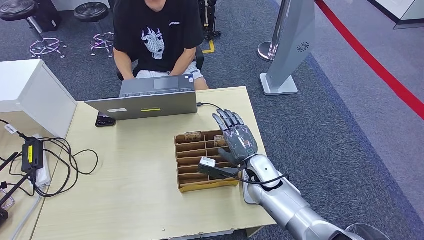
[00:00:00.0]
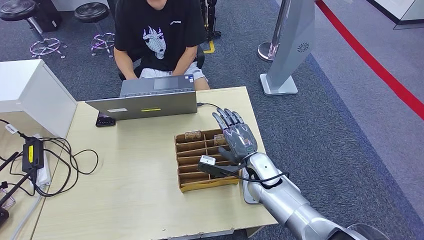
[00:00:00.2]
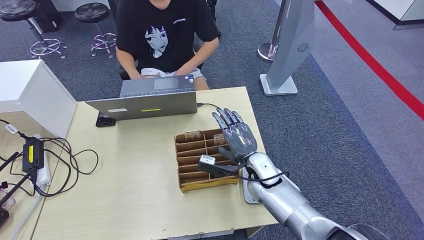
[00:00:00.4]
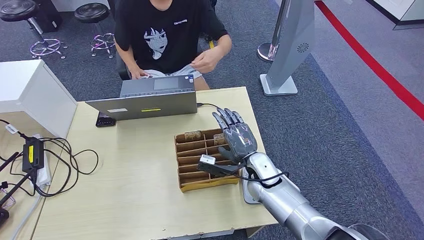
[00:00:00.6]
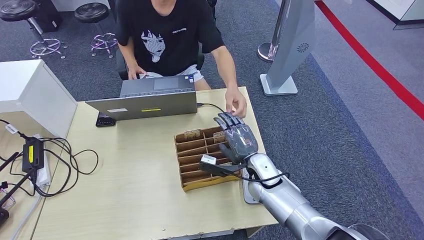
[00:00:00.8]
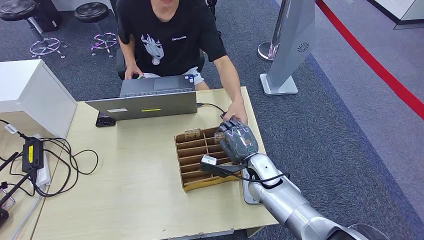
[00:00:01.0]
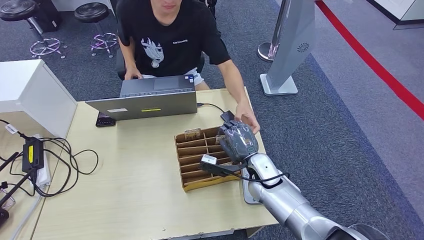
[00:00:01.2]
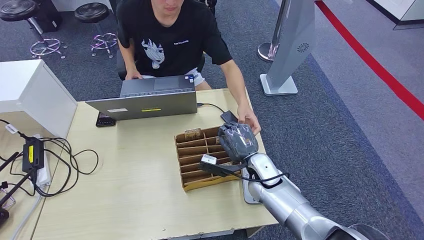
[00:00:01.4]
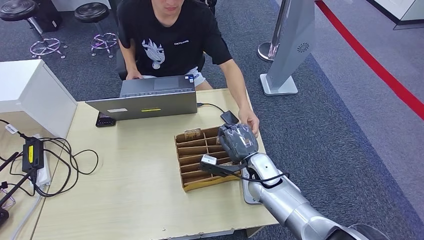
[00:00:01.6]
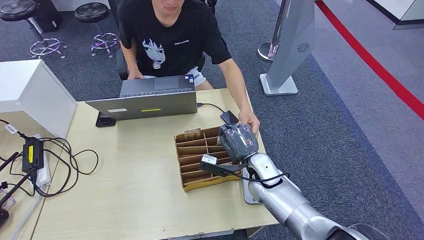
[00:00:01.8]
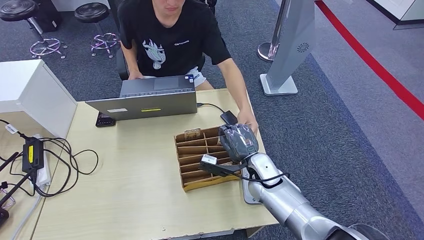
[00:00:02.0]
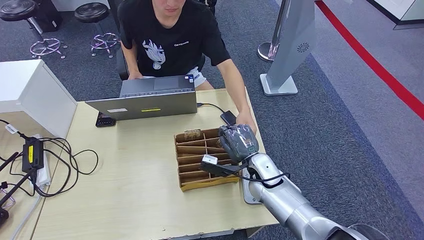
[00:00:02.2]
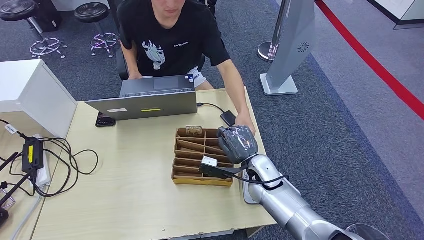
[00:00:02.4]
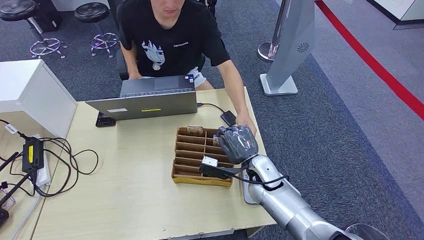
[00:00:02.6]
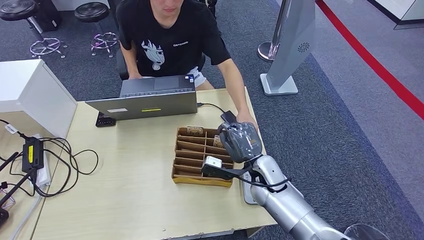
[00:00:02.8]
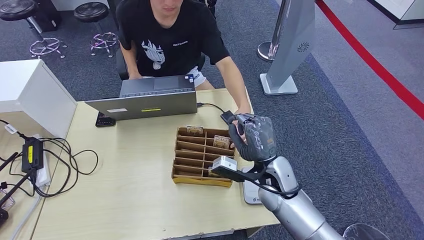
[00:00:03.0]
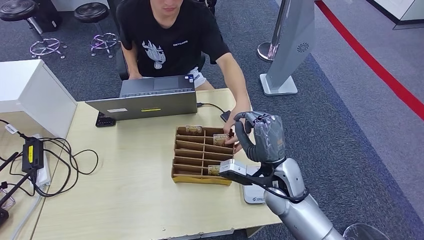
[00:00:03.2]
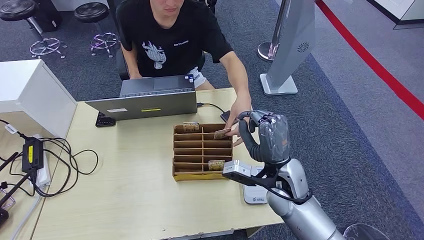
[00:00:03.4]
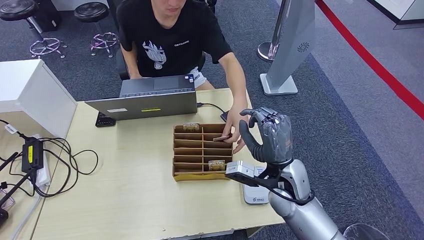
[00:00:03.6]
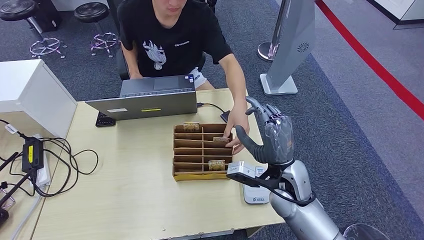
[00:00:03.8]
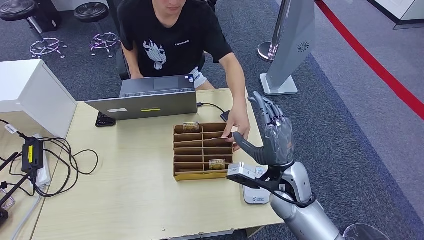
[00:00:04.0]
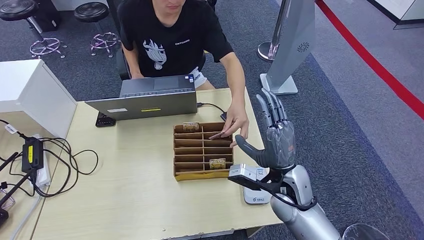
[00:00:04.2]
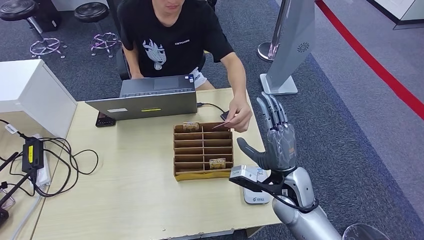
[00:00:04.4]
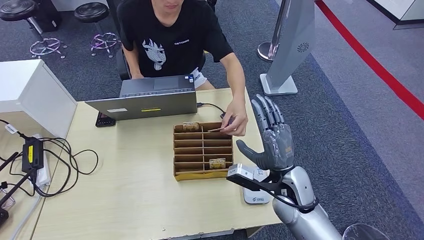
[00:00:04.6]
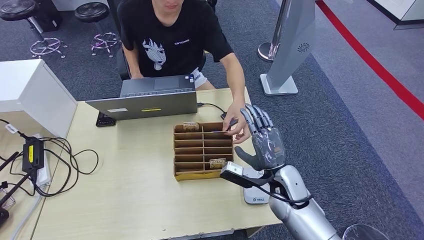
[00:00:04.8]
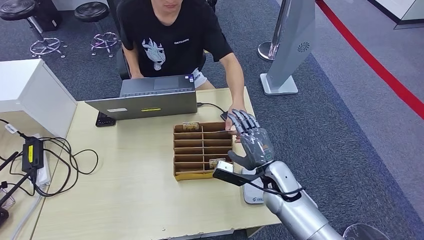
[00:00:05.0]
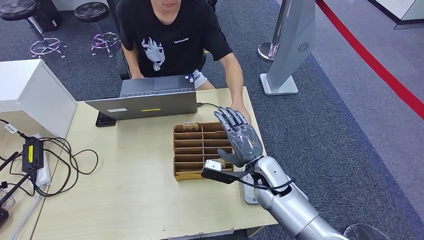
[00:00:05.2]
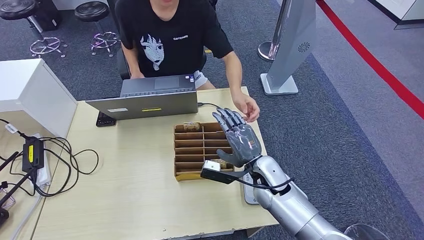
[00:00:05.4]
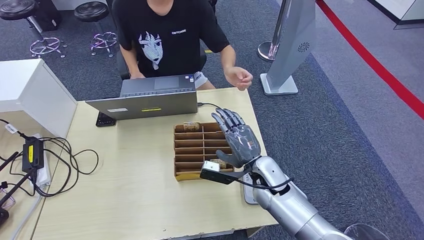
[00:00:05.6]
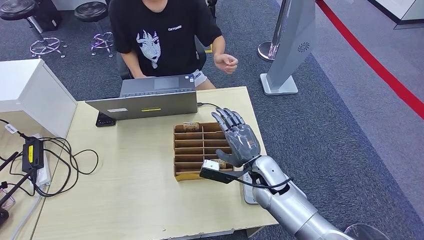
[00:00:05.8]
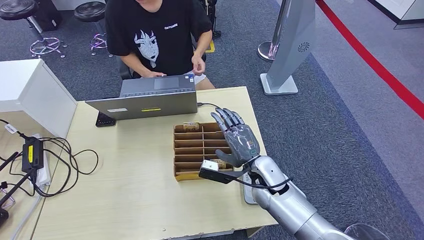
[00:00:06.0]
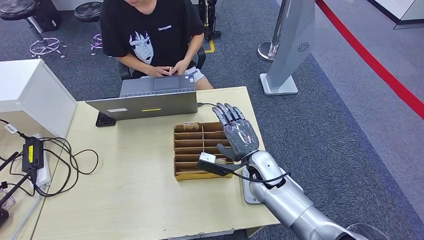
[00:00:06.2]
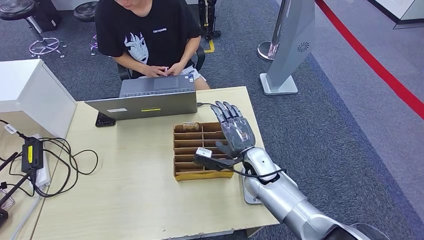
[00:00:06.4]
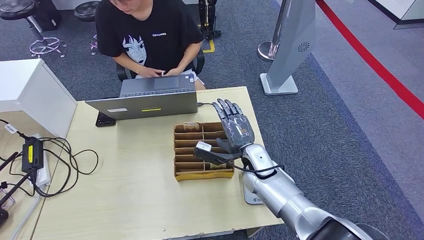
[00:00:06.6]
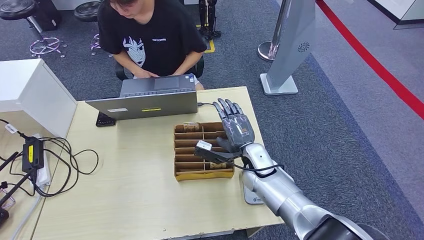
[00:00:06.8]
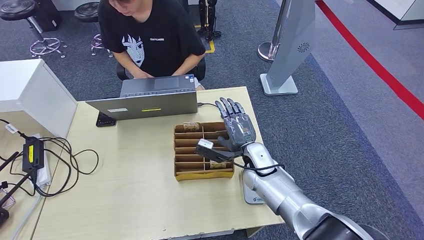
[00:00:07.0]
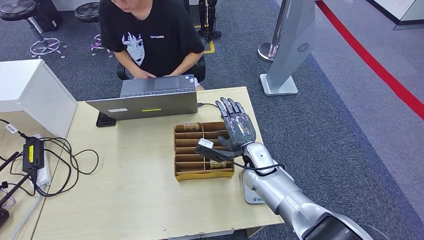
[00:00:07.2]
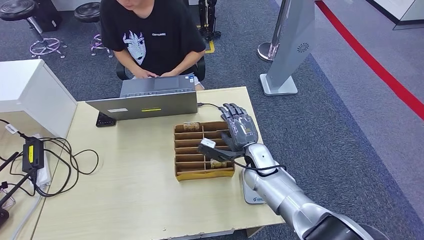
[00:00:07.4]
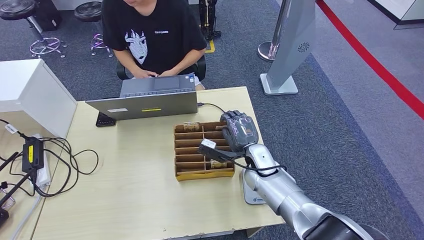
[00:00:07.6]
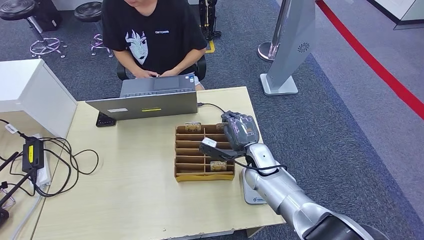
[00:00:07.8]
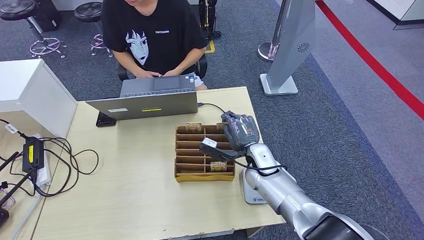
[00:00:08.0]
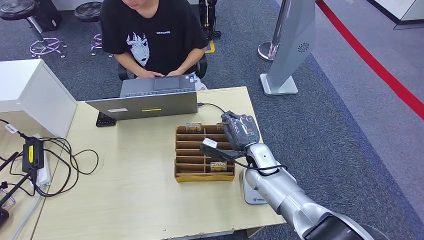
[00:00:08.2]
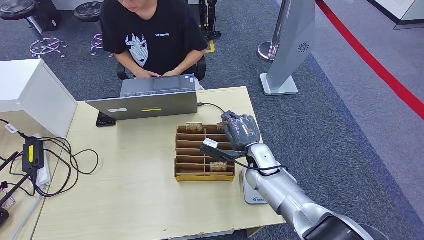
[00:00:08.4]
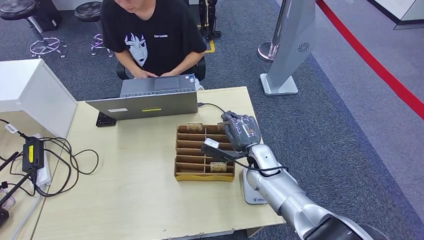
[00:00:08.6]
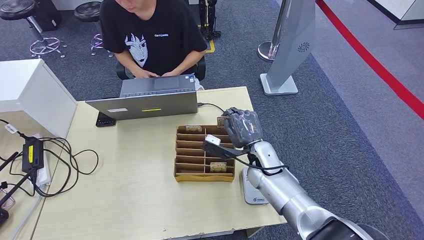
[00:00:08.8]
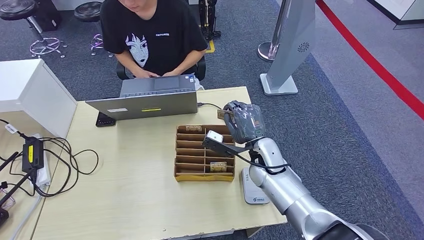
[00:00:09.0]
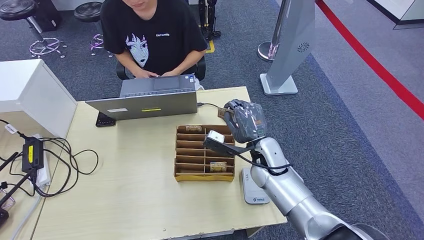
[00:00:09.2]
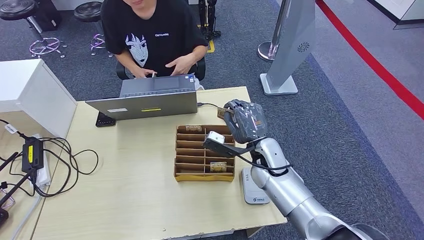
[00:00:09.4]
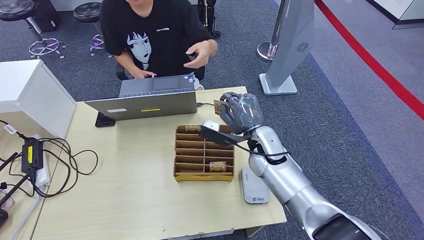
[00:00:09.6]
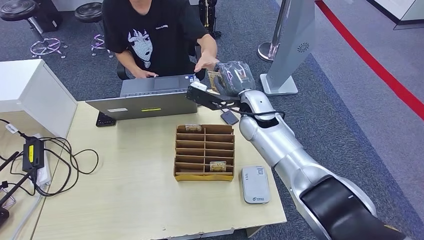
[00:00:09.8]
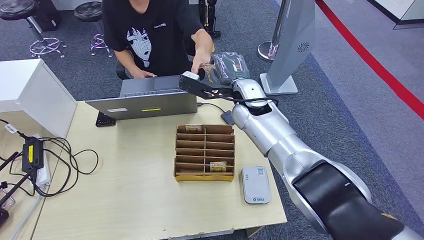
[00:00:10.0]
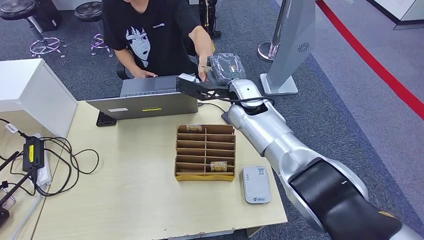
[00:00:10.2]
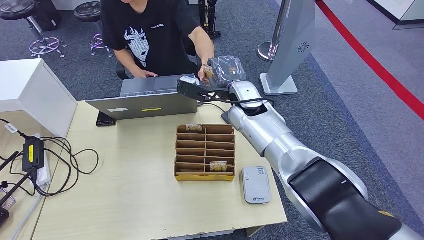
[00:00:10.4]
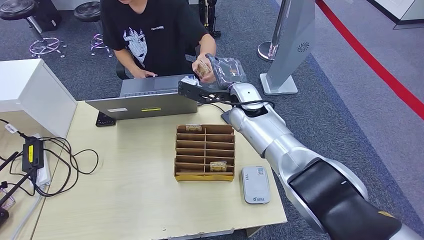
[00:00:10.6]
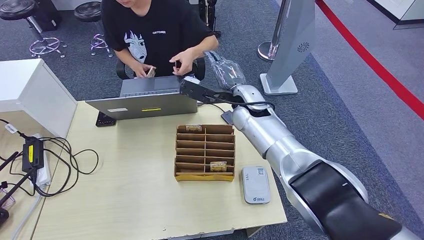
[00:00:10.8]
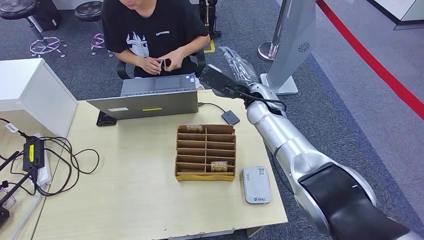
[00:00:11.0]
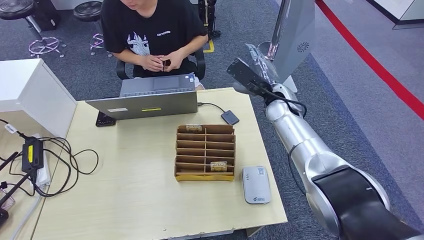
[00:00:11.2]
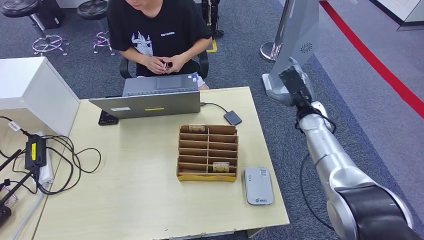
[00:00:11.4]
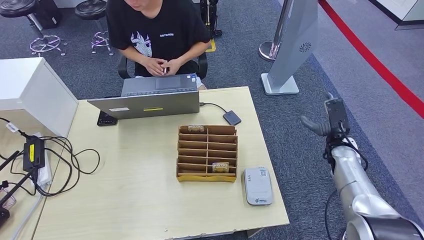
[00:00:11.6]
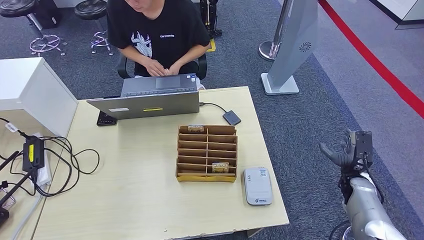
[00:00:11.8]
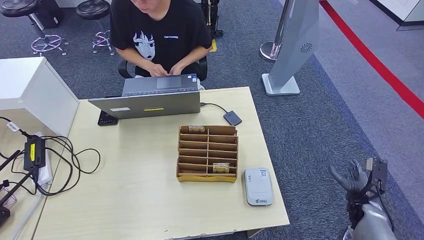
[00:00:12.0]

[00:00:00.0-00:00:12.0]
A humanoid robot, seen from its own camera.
00:00:00.0 to 00:00:01.6: The two hands keep their place.
00:00:01.6 to 00:00:03.0: The right hand travels upward by approximately 5 cm.
00:00:03.0 to 00:00:04.4: The hands move only a little.
00:00:04.4 to 00:00:06.0: The right hand ends up about 5 cm from where it was.
00:00:06.0 to 00:00:09.0: The hands make only small movements.
00:00:09.0 to 00:00:10.4: The right hand shifts roughly 15 cm upward and forward.

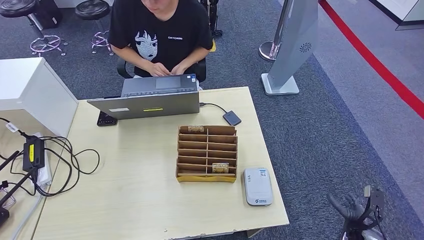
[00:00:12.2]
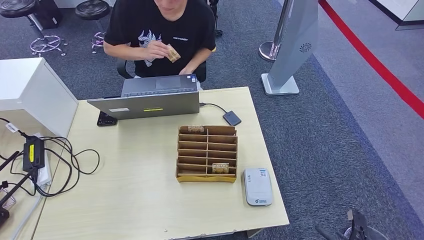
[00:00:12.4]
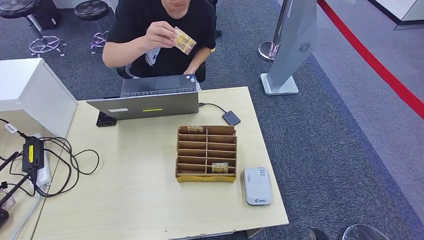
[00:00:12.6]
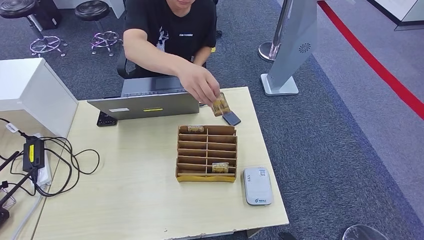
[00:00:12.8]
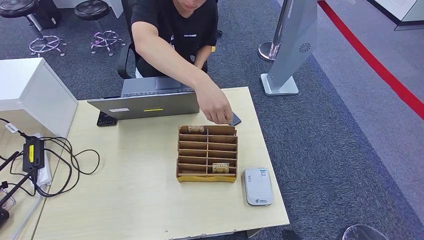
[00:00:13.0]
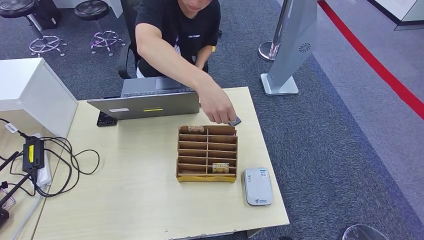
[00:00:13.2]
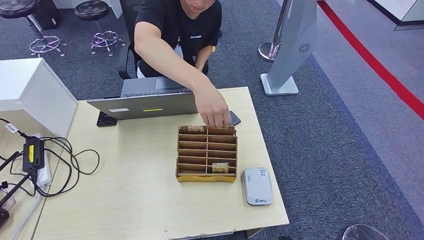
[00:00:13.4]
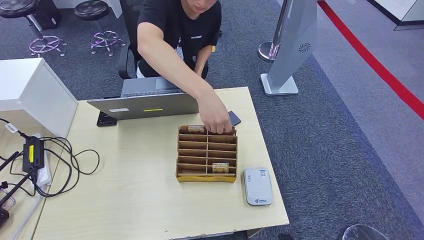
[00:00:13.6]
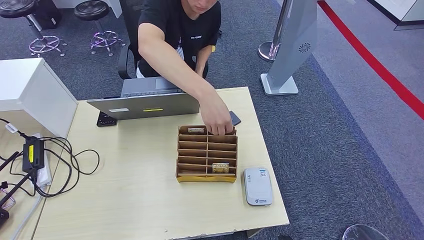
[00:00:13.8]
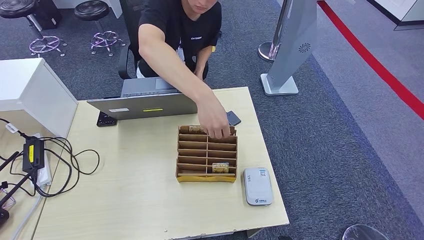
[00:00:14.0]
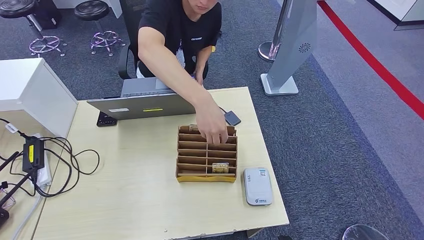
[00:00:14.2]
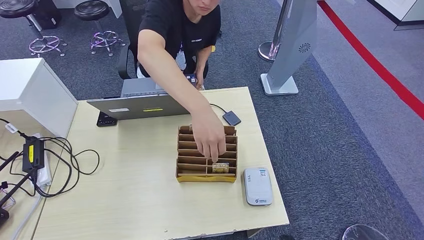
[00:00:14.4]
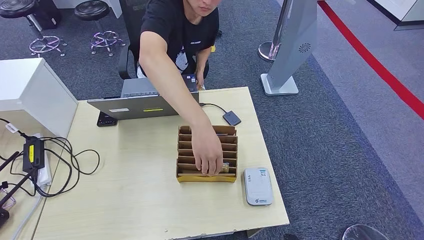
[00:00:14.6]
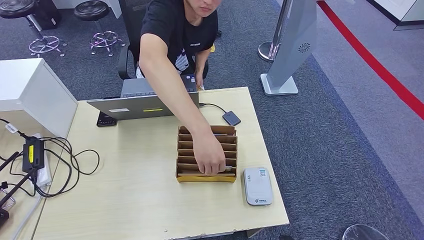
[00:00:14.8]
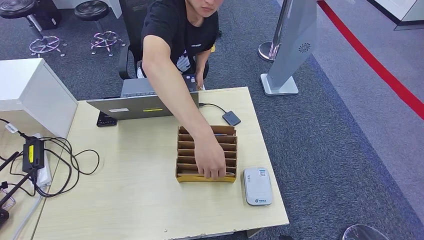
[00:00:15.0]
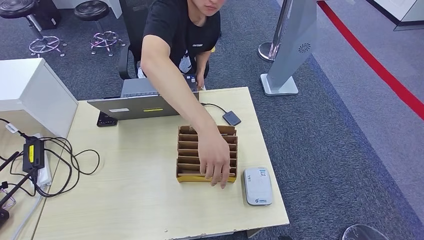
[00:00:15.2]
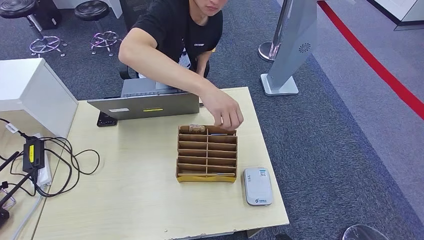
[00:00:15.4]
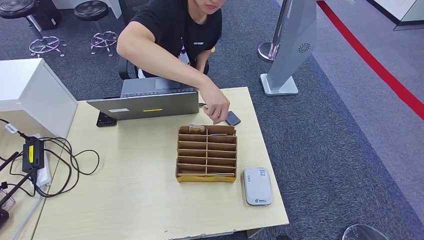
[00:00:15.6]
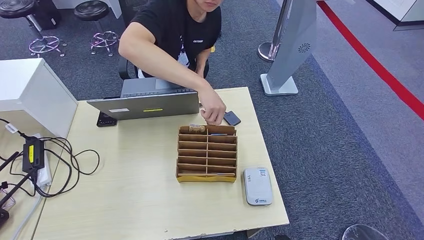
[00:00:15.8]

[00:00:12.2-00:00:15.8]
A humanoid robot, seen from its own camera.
Step, 00:00:12.2 to 00:00:15.8: Hand the room key to the person.
00:00:12.2 to 00:00:14.0: The right hand moves to the left and backward, some 15 cm.
